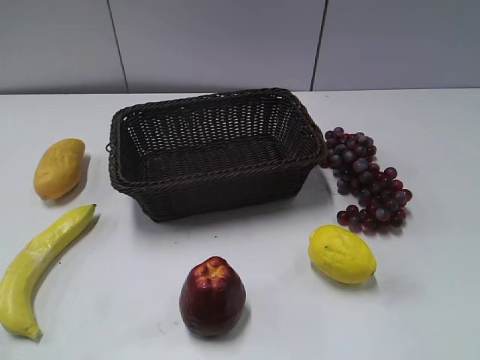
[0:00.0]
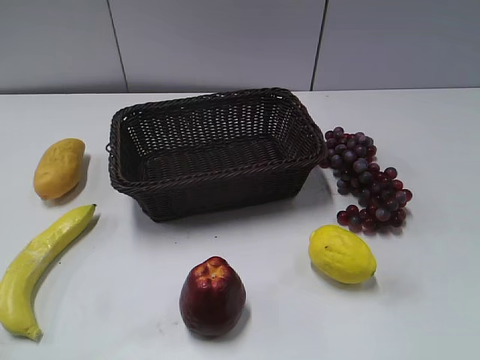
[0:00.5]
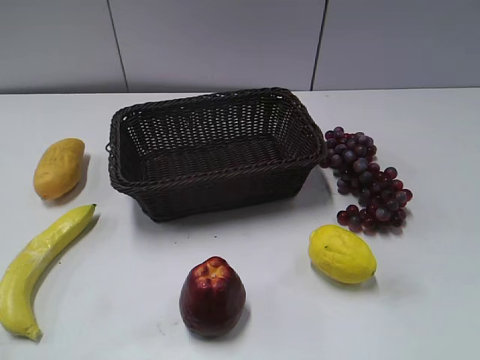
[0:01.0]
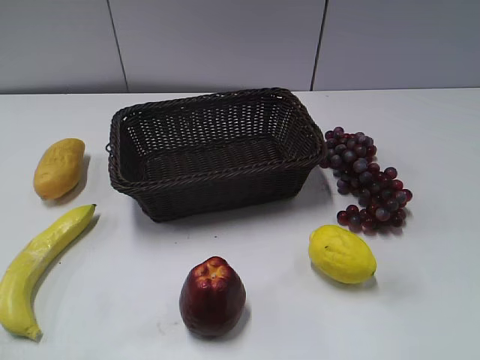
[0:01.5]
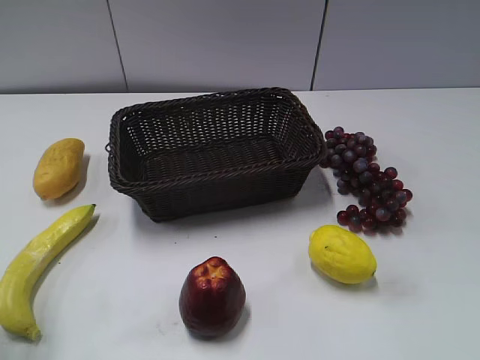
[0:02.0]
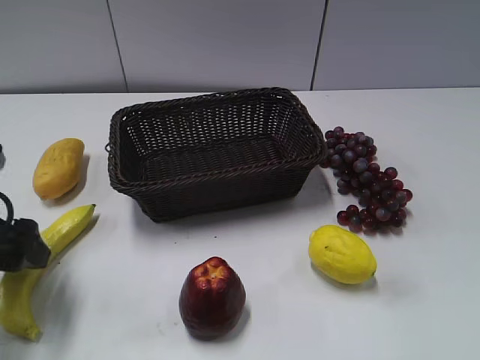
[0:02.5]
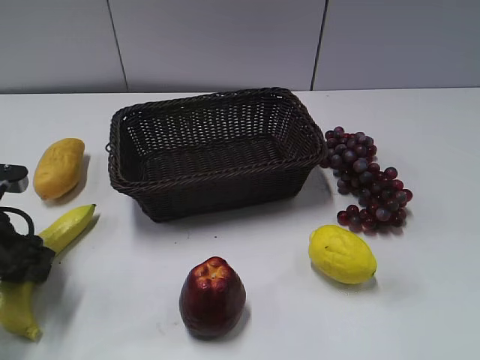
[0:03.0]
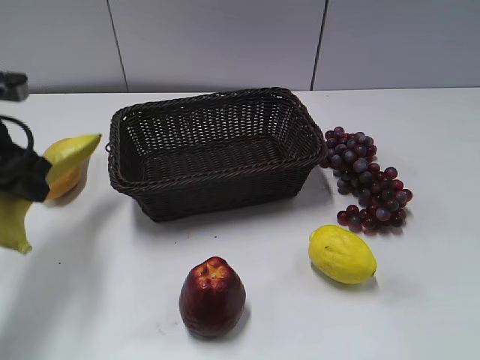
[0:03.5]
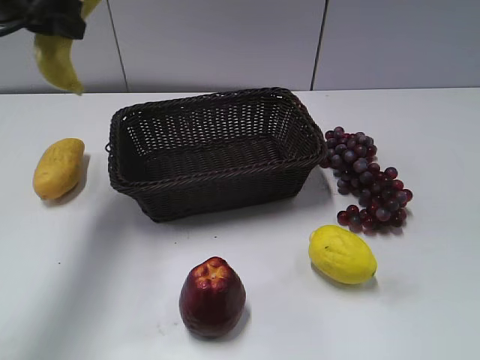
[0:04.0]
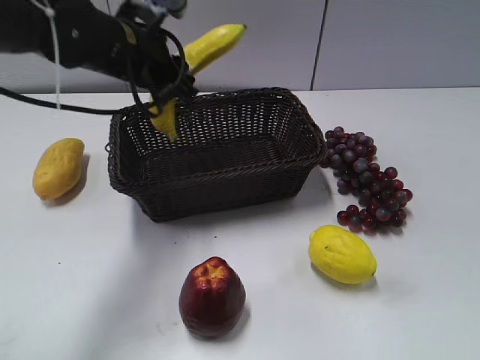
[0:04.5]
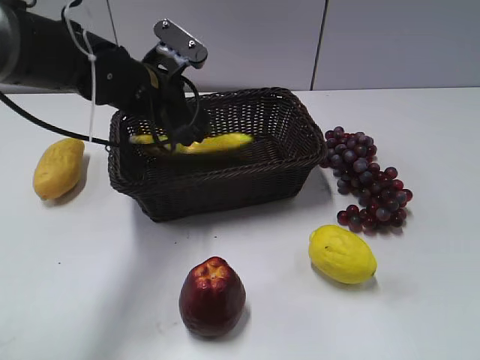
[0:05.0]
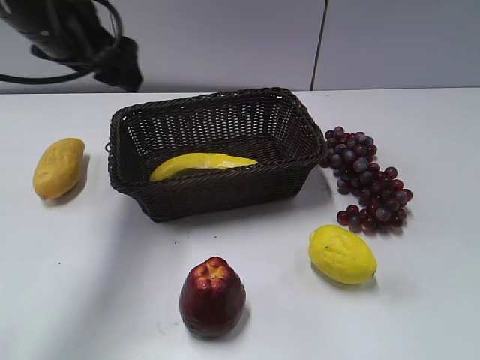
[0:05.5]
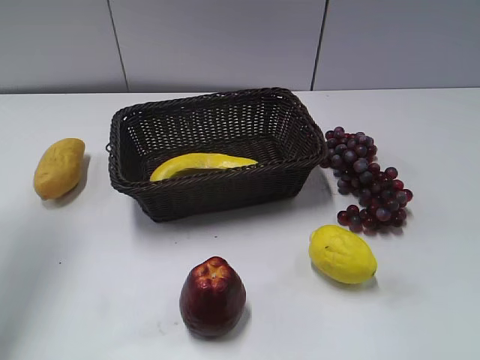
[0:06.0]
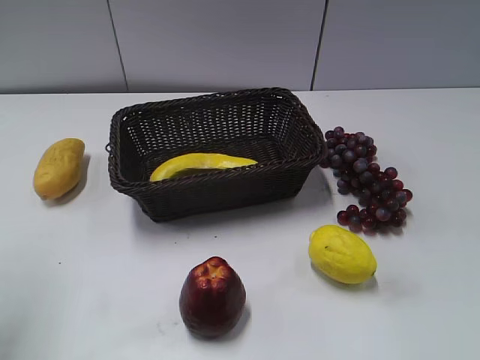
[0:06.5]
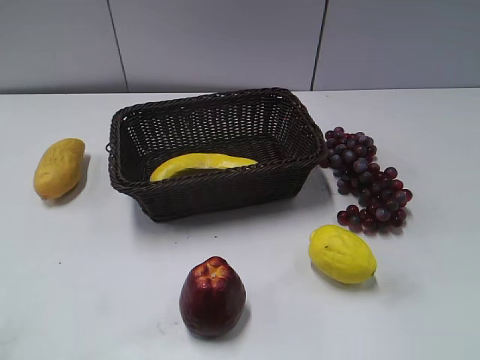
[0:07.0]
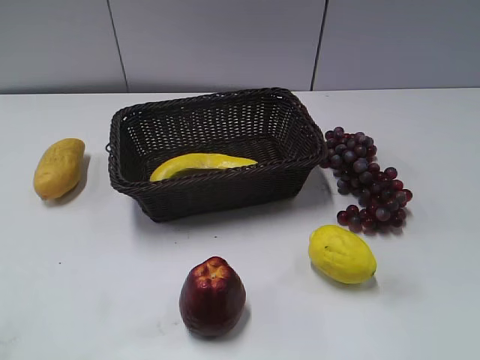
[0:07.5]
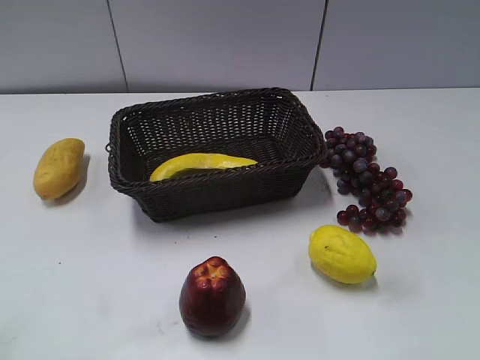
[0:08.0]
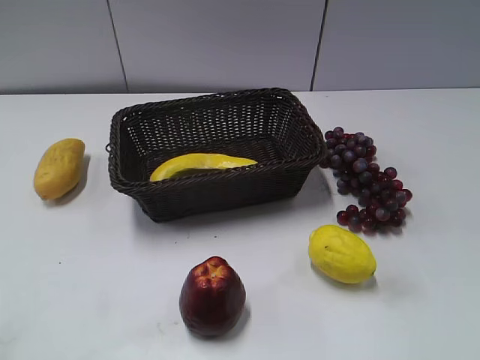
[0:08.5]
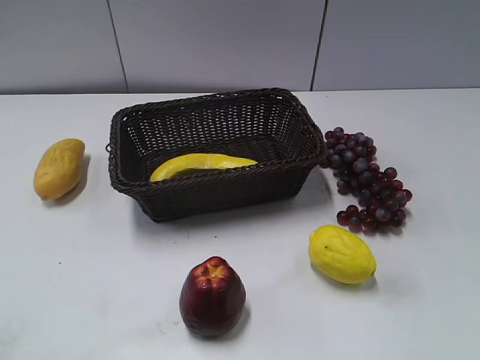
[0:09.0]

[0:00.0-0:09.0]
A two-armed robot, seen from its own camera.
Step, 0:02.5 to 0:03.0: Grasp the banana with left gripper.
Step, 0:03.5 to 0:05.0: Place the banana in the basket with left gripper.
0:02.0 to 0:04.5: The left gripper goes approximately 30 cm forward and to the right, and closes its fingers.
0:04.5 to 0:07.0: The left gripper heads backward and to the left, covering approximately 40 cm, and opens its fingers.
